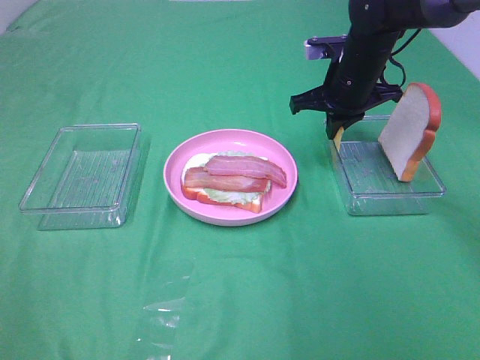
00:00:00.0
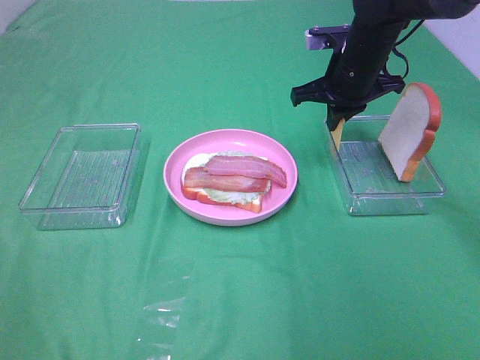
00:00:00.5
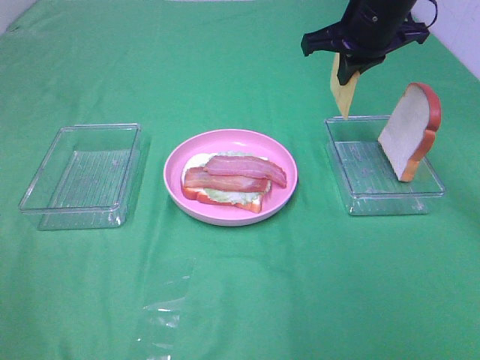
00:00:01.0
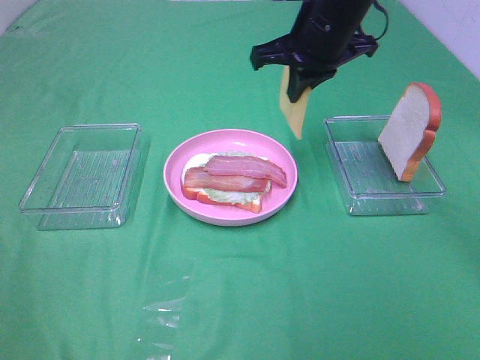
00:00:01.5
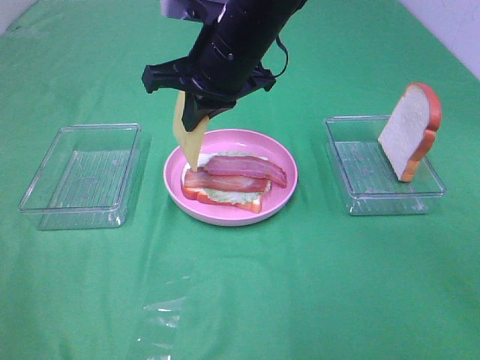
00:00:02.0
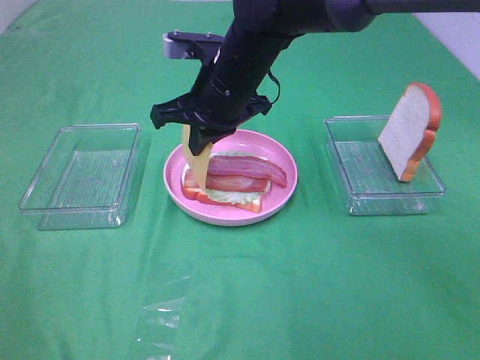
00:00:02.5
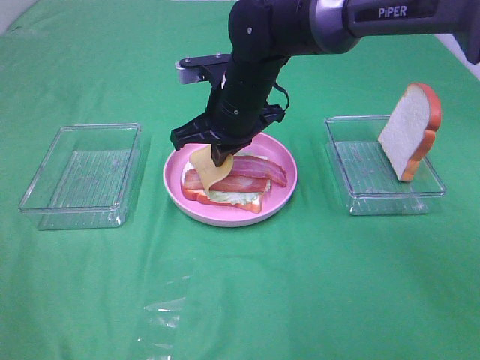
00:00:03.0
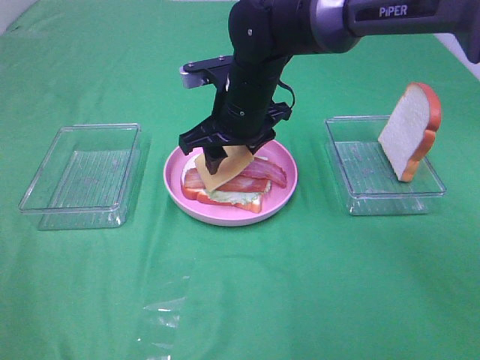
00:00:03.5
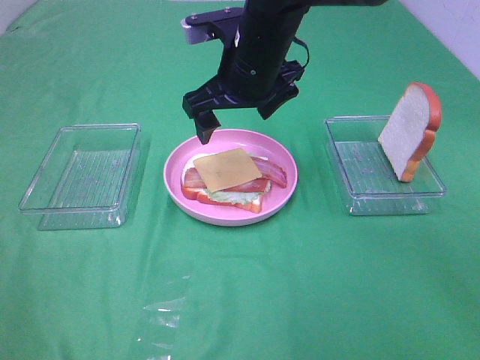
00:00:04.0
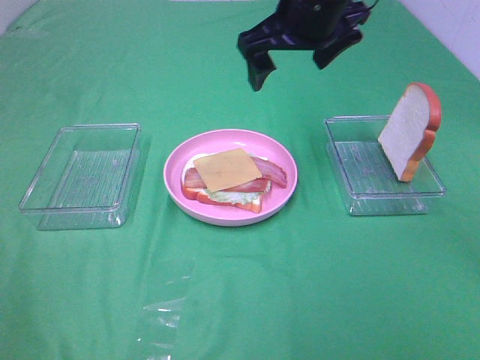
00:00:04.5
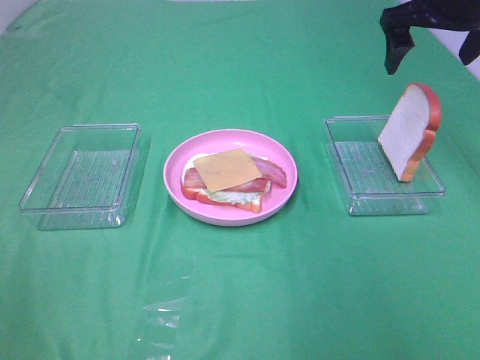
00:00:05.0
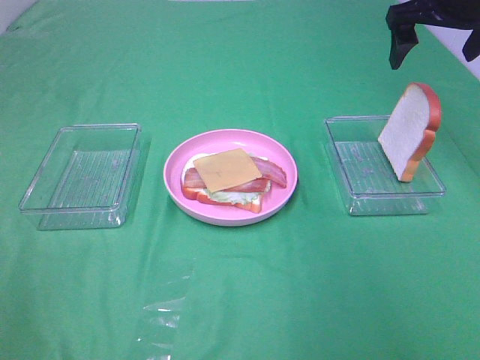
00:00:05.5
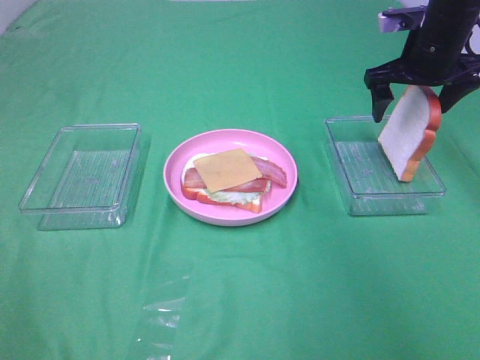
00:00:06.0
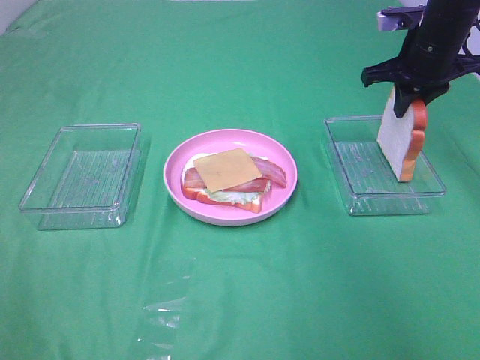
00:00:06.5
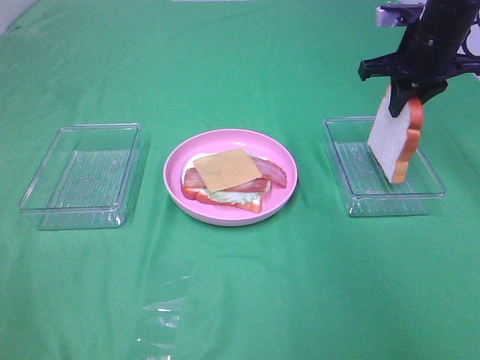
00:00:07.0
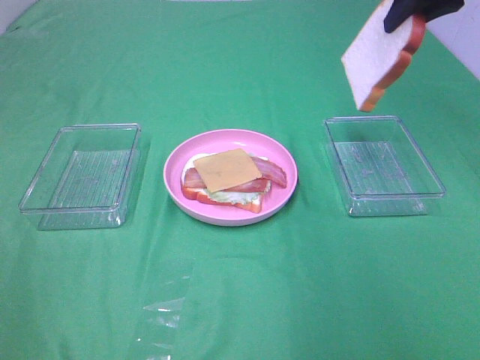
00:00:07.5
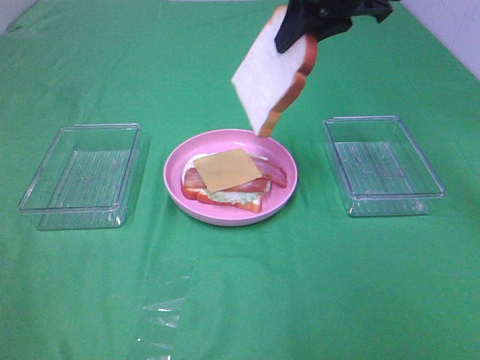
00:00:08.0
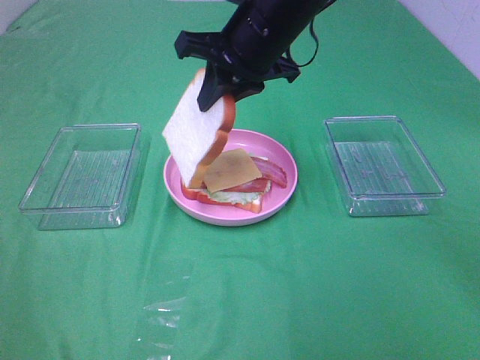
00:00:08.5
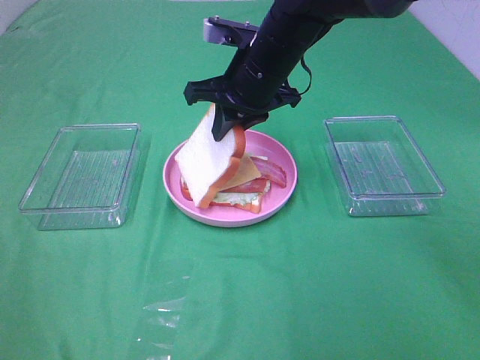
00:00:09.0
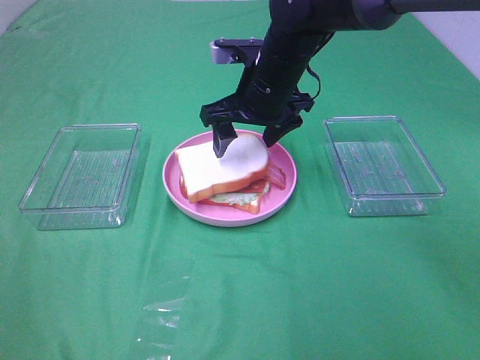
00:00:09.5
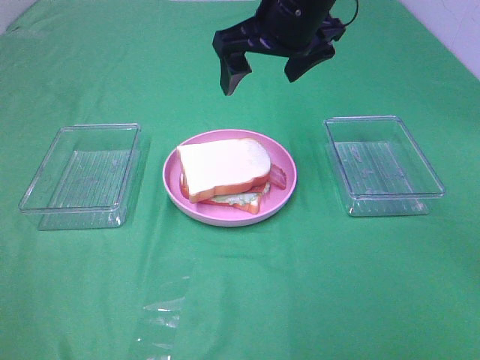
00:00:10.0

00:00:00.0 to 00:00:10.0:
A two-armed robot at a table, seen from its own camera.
Task of the whole recording: Make sandwiches.
Step, 00:00:00.0 to 00:00:03.5: Right hand:place the cheese slice on top of the bacon.
Step, 00:00:04.0 to 00:00:06.5: Right hand:grab the bread slice.
Step, 00:00:07.0 to 00:00:09.5: Right hand:place the bread slice on the cheese slice.
00:00:00.0 to 00:00:02.0: The right gripper goes about 20 cm to the left, backward and upward.
00:00:02.0 to 00:00:04.0: The right gripper reaches roughly 10 cm downward, then returns, and opens its fingers.
00:00:04.0 to 00:00:06.0: The right gripper shifts some 25 cm to the right.
00:00:06.0 to 00:00:08.0: The right gripper goes roughly 20 cm to the left, upward and backward, and closes up.
00:00:08.0 to 00:00:10.0: The right gripper is displaced to the left by about 5 cm, goes downward and returns, approximately 15 cm each way, and opens its fingers.

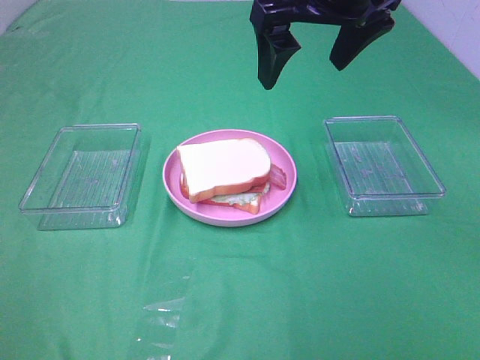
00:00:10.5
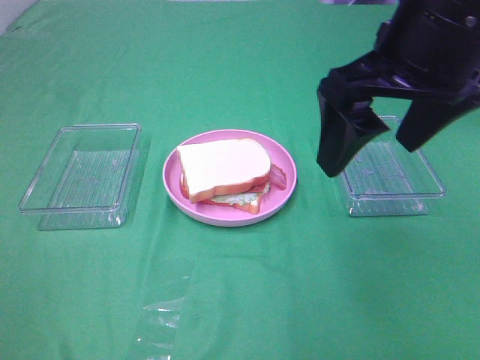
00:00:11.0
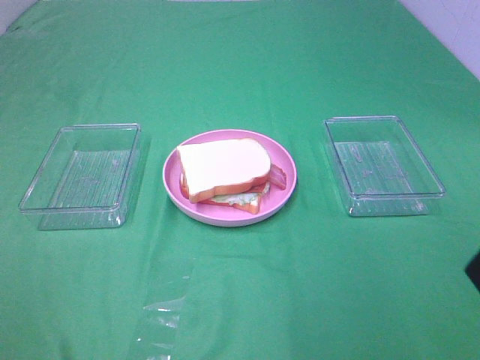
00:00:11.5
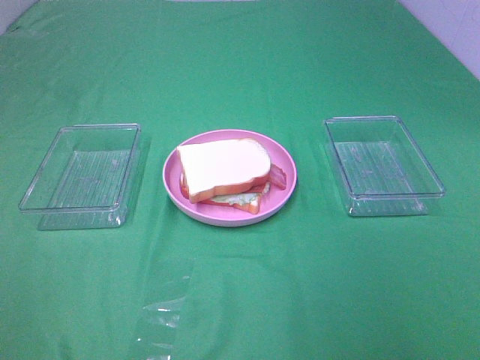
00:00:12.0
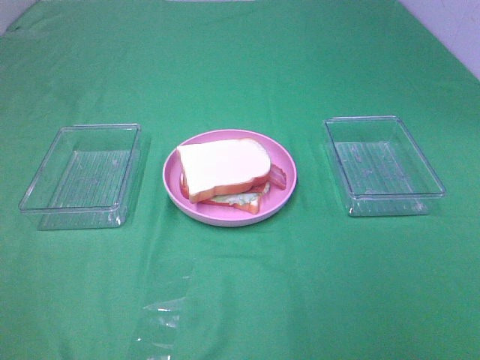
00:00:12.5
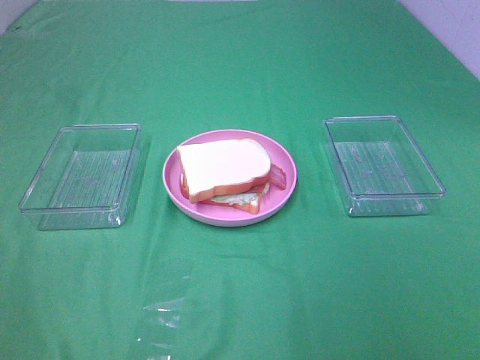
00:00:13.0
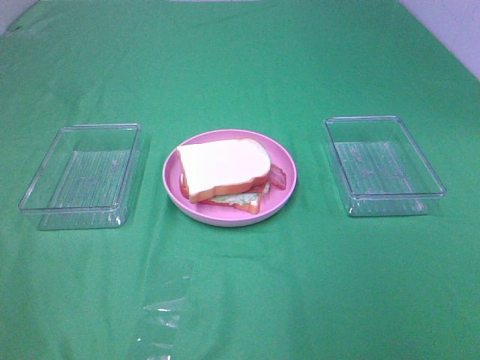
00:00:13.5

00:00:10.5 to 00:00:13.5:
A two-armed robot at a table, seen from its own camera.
Task of the whole recording: Make sandwiches.
00:00:10.5 to 00:00:12.0: The right gripper goes approximately 35 cm backward and to the right.

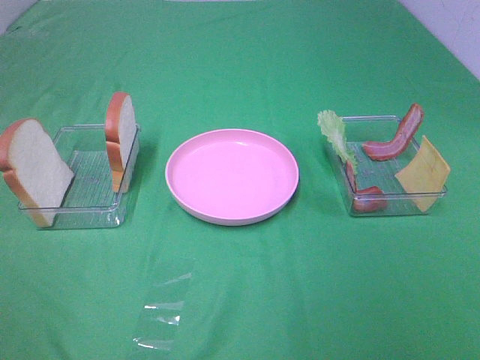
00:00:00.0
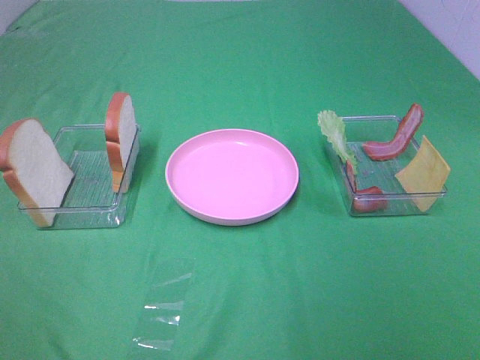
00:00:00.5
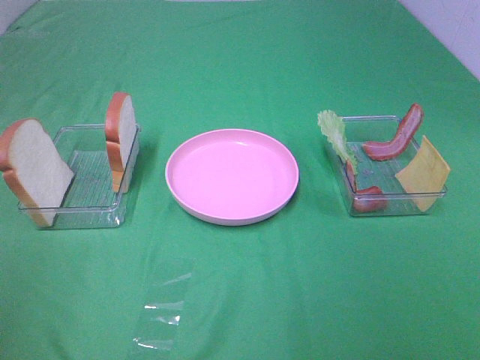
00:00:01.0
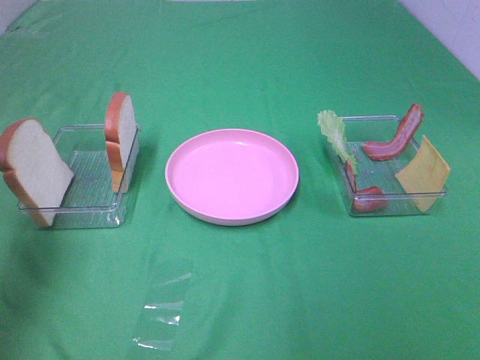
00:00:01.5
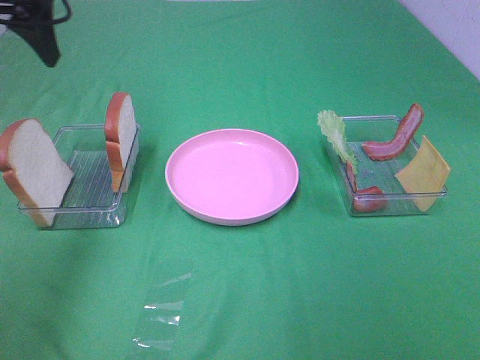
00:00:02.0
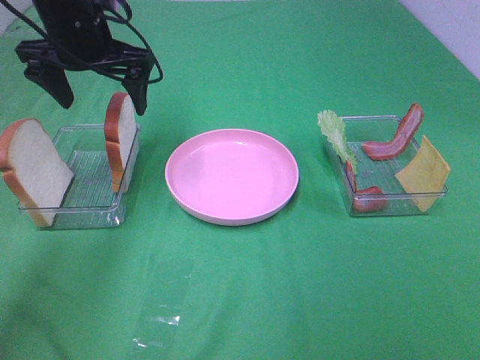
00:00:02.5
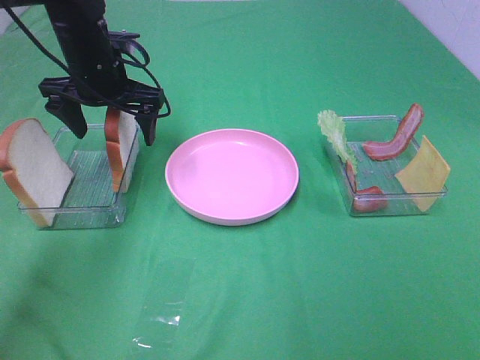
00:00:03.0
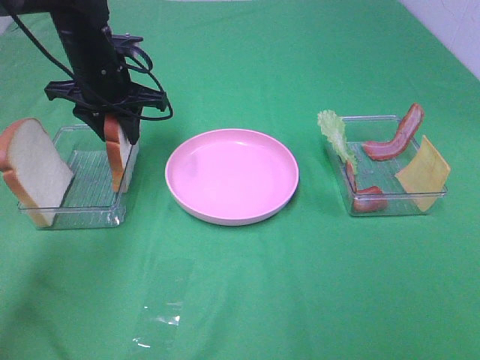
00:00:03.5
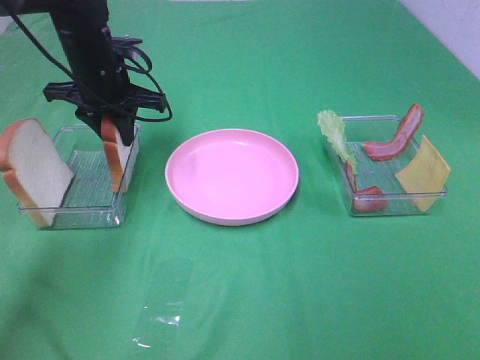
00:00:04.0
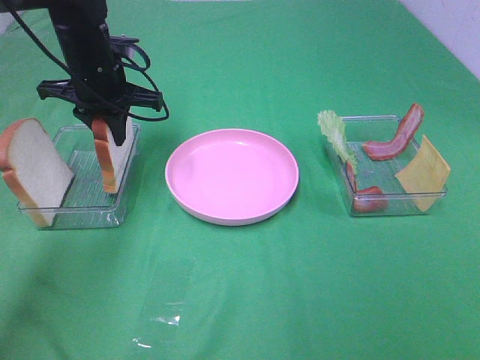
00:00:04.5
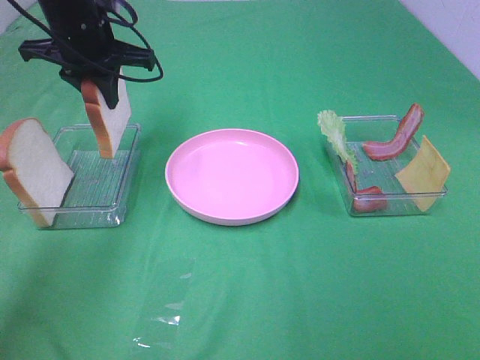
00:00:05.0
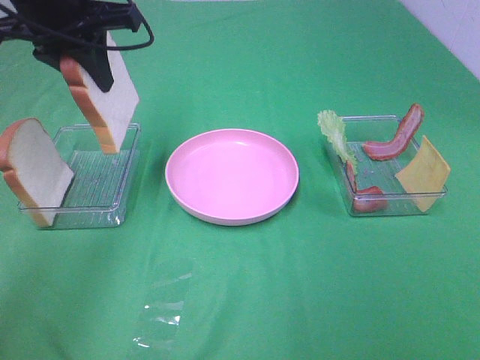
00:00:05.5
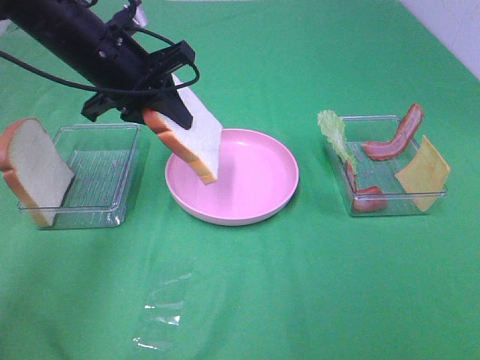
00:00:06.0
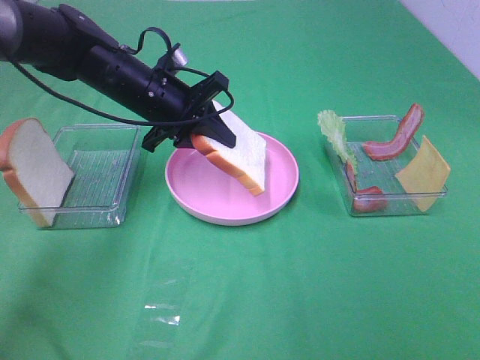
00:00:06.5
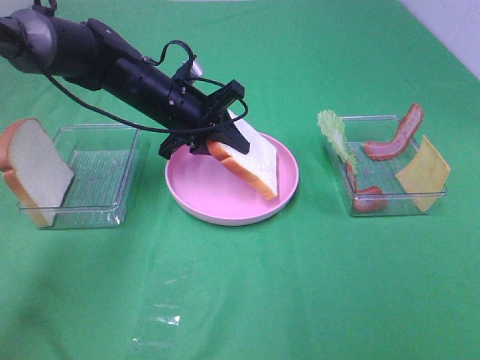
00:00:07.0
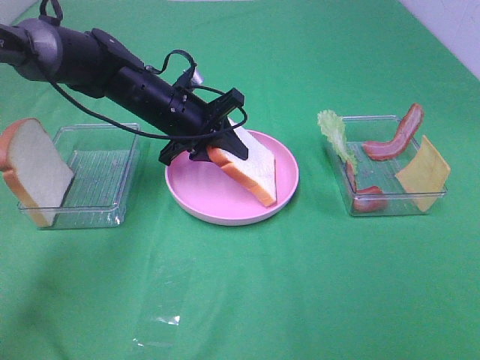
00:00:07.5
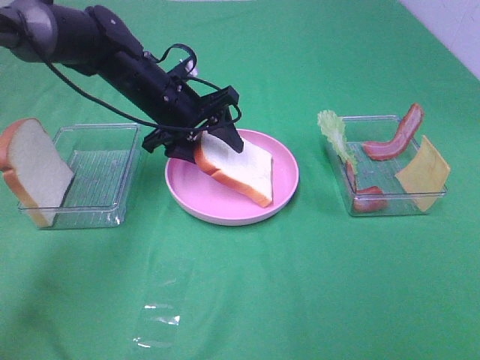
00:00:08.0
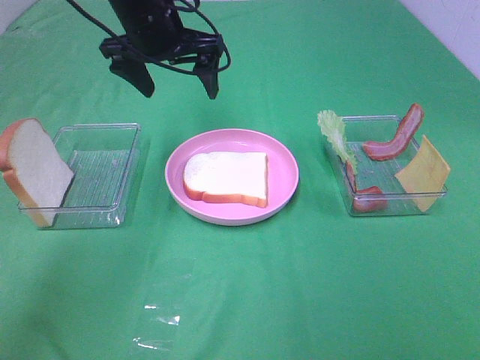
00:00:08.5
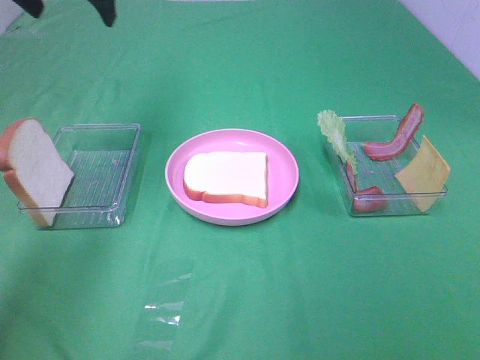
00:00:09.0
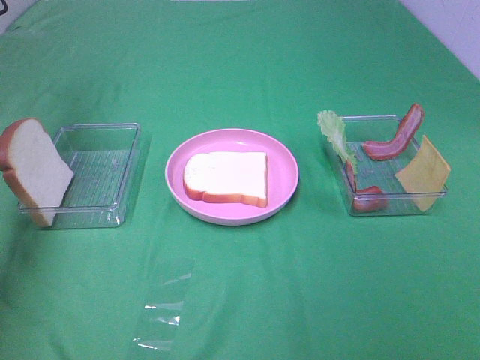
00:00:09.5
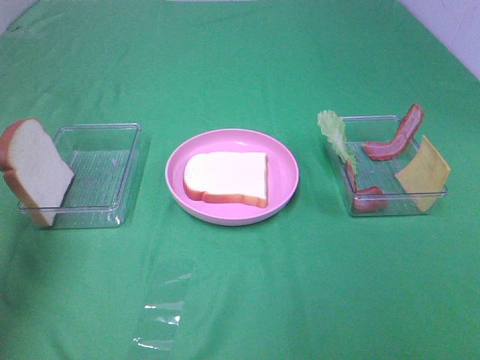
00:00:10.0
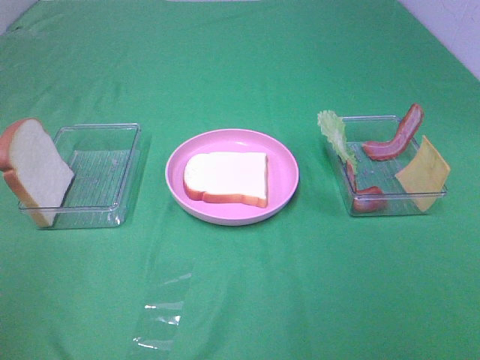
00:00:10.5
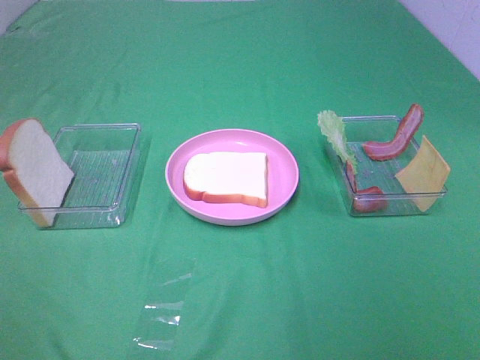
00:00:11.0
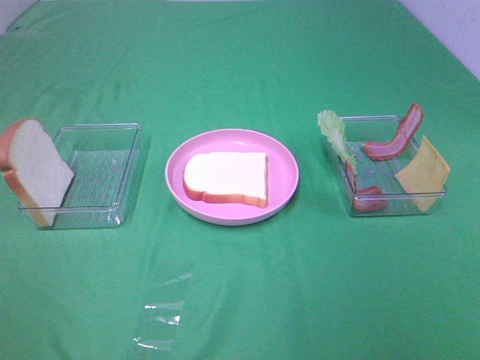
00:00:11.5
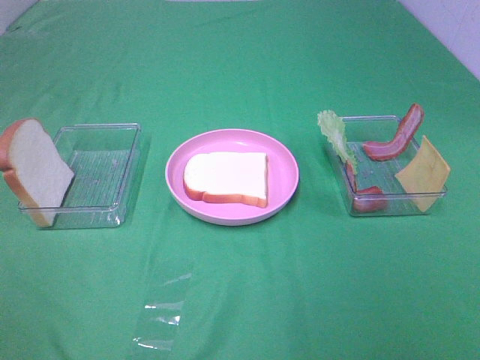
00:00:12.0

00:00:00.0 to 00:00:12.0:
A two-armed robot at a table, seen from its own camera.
Task of the whole recording: Make sandwiches.
Step, 00:00:00.0 to 00:00:04.0: Left hand:grab the bread slice.
Step, 00:00:04.5 to 00:00:08.0: Left hand:place the bread slice on the plate.
00:00:00.0 to 00:00:02.0: The left gripper shifts roughly 35 cm forward.
00:00:02.0 to 00:00:04.0: The left gripper moves downward, forward and to the right, approximately 20 cm, and closes its fingers.
00:00:04.0 to 00:00:06.0: The left gripper moves backward, roughly 5 cm.
00:00:06.0 to 00:00:08.0: The left gripper is displaced downward by approximately 10 cm, and opens its fingers.
00:00:08.0 to 00:00:10.0: The left gripper heads to the left, upward and backward, covering approximately 35 cm, and opens.
00:00:10.0 to 00:00:12.0: The left gripper moves backward, about 25 cm.
